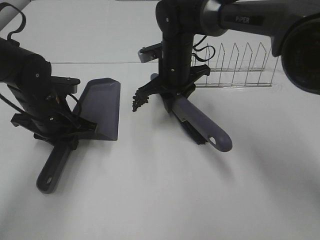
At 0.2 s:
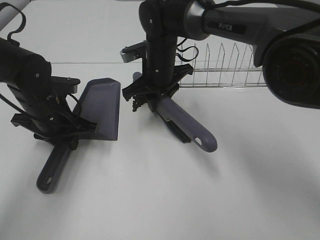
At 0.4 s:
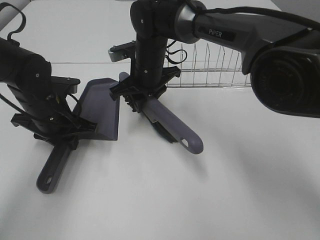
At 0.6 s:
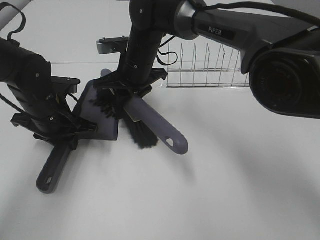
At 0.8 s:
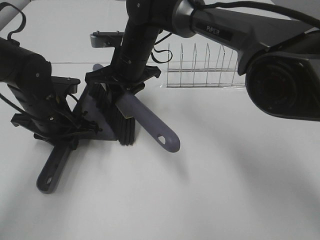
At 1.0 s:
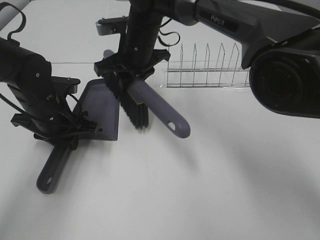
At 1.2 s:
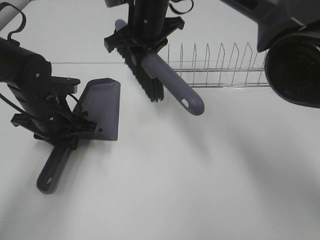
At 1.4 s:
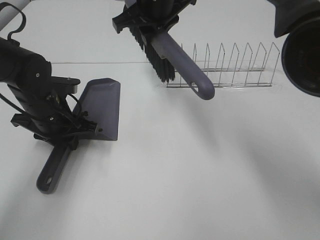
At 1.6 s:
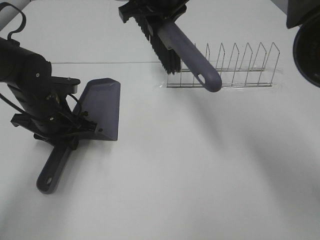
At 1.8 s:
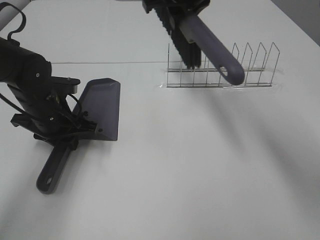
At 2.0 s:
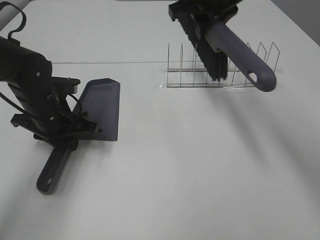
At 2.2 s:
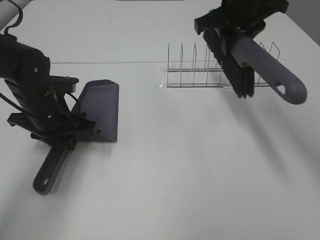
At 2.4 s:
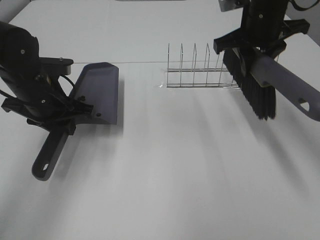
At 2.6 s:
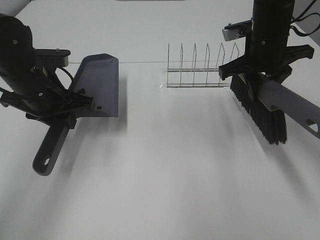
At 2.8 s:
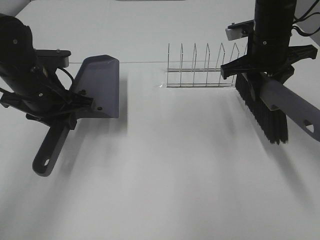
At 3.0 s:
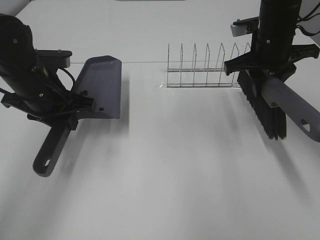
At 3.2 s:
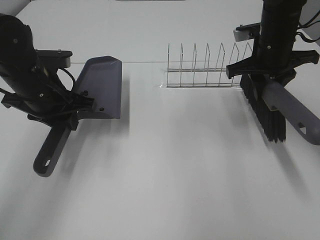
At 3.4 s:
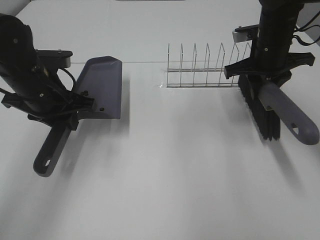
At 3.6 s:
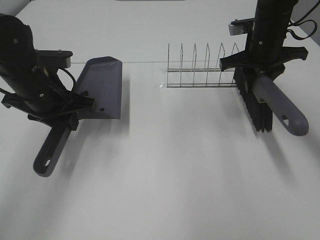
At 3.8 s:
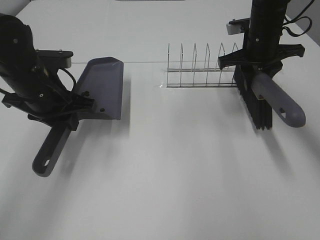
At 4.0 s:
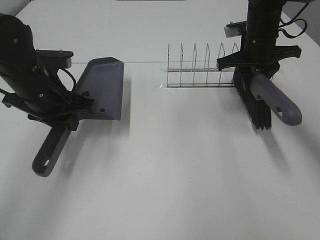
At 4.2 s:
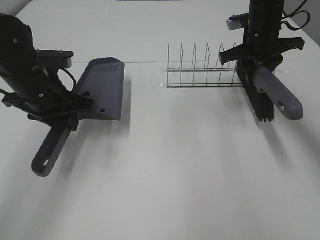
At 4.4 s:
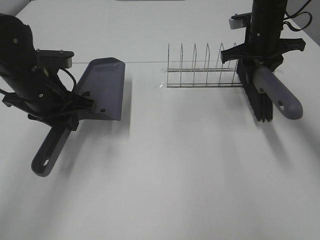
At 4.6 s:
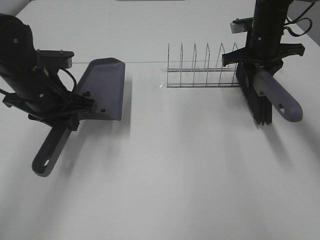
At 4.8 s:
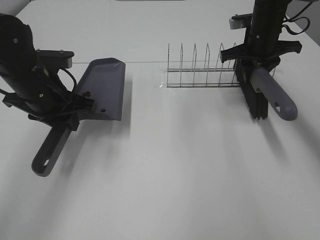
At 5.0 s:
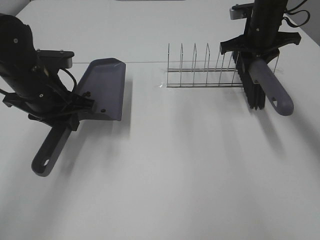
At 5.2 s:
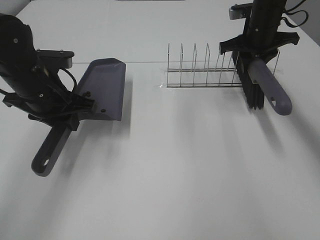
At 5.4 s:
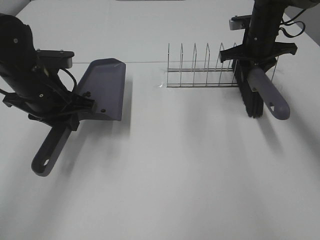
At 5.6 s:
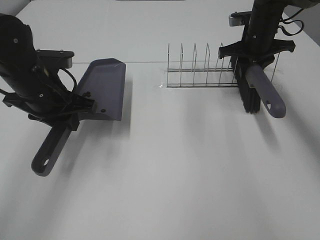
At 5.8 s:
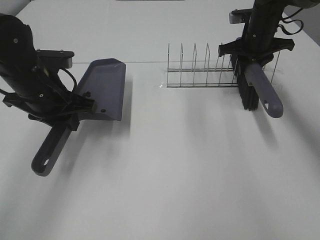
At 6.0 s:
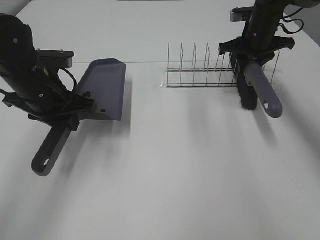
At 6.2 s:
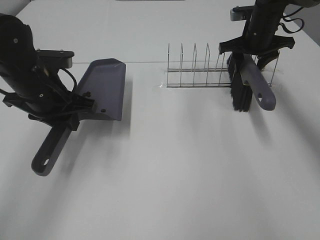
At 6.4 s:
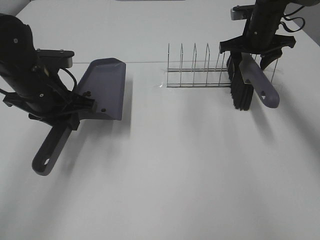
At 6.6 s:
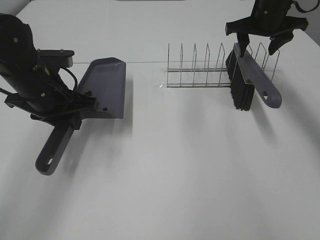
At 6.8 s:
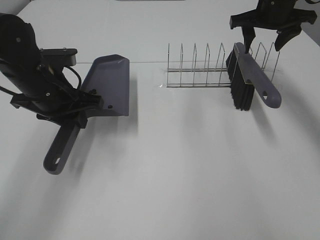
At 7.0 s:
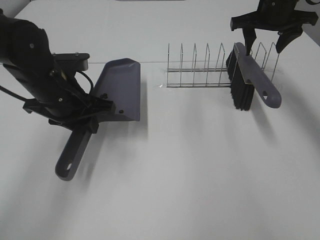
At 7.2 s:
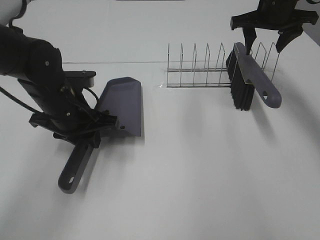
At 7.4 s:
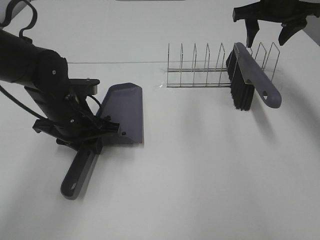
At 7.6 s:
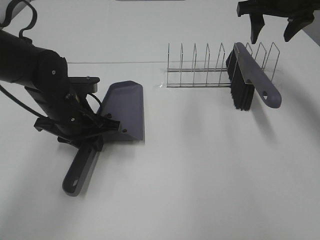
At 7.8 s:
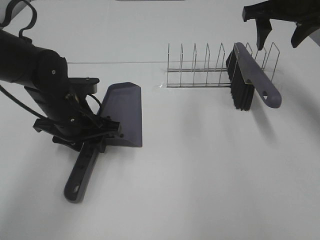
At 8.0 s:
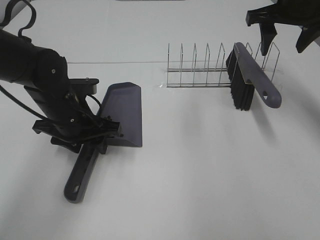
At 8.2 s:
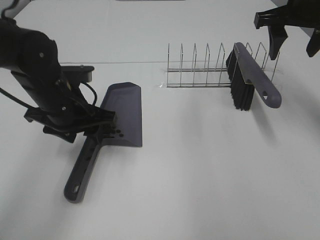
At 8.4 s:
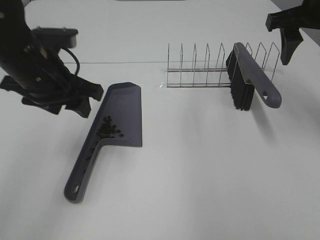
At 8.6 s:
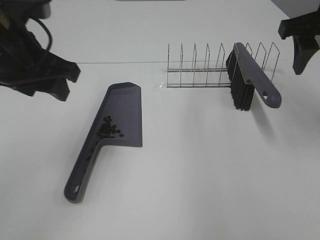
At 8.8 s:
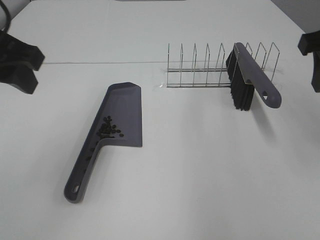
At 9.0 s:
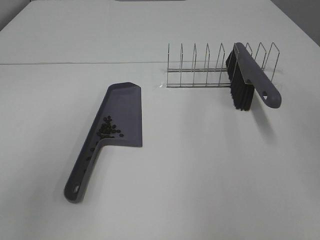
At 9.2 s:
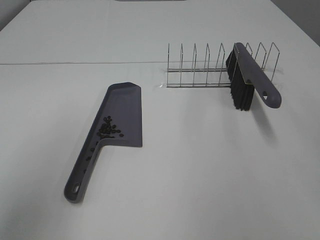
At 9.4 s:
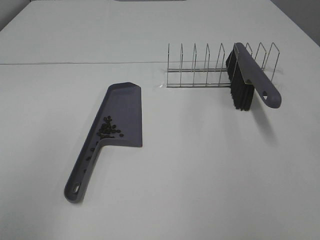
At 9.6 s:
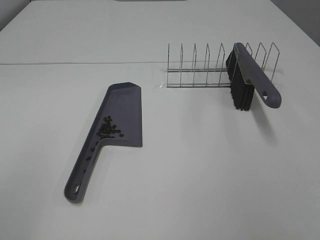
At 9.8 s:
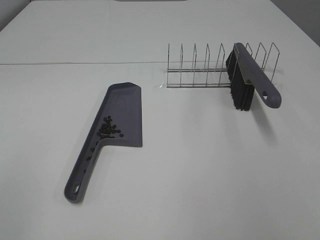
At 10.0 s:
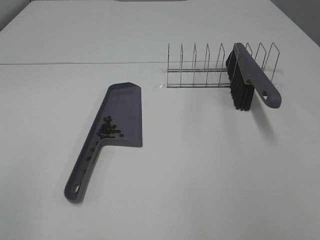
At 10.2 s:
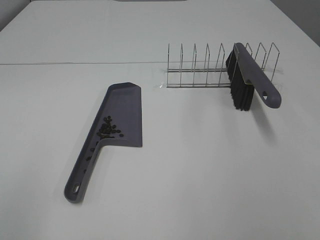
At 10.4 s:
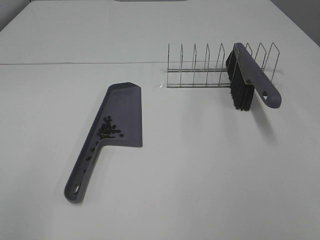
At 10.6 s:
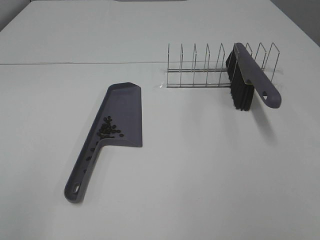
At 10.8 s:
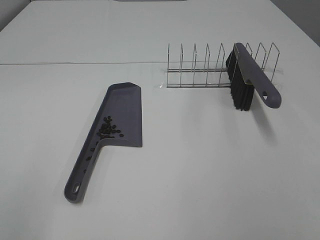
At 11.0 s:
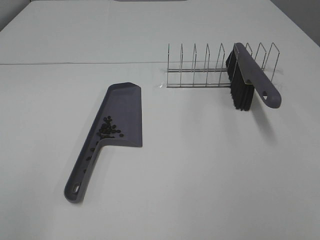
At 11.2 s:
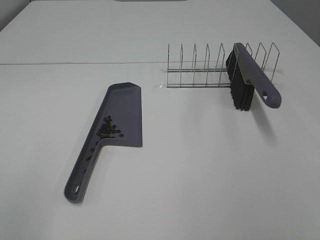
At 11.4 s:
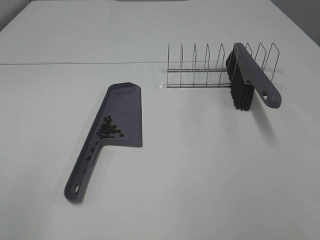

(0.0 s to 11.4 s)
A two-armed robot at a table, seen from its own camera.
Task of the whole recording: Sweep Coffee Bean.
Step, 1.2 s - 6.8 s: Right hand:place the broom on the rack.
Step, 7.0 s - 8.2 s: Left hand:place the dustpan on the table.
0.0 s - 1.4 s: The right gripper moves upward, approximately 15 cm.
1.4 s - 2.8 s: The right gripper shifts about 20 cm to the right. Meanwhile the left gripper travels upward by about 5 cm.
2.8 s - 4.2 s: The right gripper moves forward, some 5 cm.
4.2 s - 5.6 s: There are only small adjustments of the grippers.
5.6 s - 7.2 s: The right gripper heads upward, covering approximately 10 cm, and opens up.
7.2 s - 8.6 s: The right gripper moves backward, roughly 15 cm. The left gripper shifts approximately 15 cm upward, and opens.
8.6 s - 10.0 s: The right gripper moves backward, roughly 30 cm. The left gripper moves backward and to the left, approximately 30 cm.

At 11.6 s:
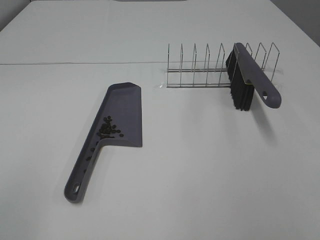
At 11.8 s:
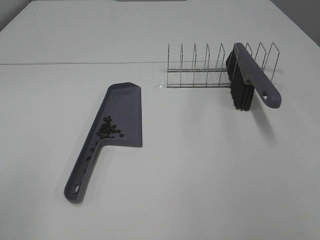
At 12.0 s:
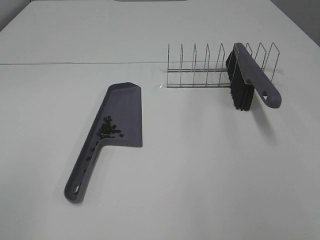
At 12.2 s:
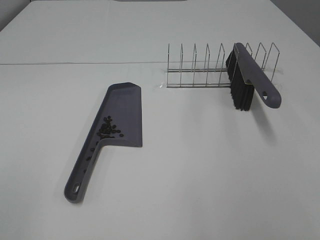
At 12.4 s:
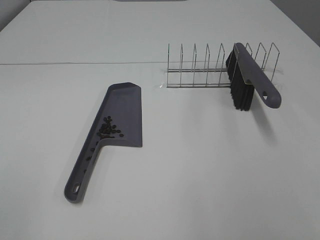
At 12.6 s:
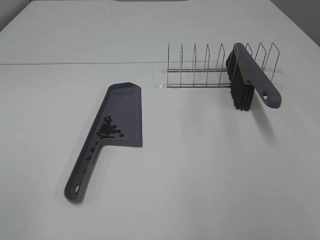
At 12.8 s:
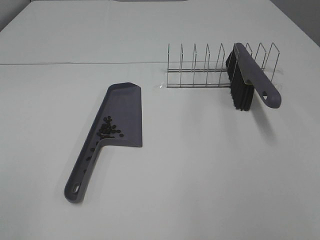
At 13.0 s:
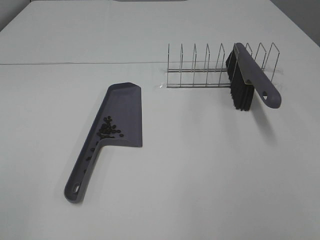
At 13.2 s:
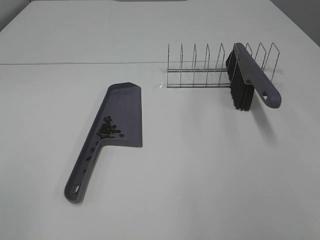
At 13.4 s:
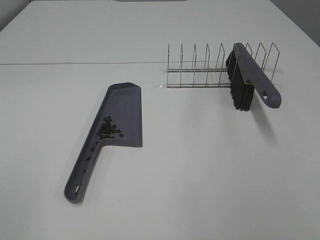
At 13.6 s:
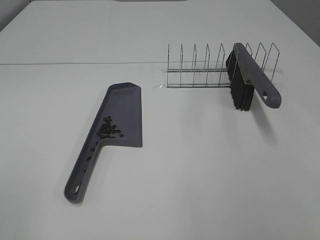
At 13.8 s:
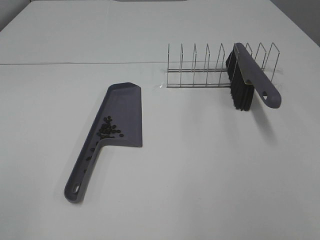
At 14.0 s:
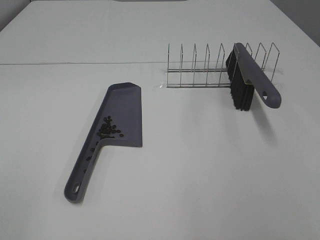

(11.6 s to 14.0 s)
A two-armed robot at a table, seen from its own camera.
Task of the whole recording: Sweep Coffee Bean.
12.8 s - 14.0 s: Both grippers stay put.
